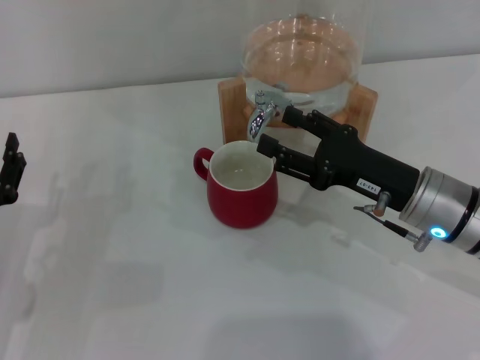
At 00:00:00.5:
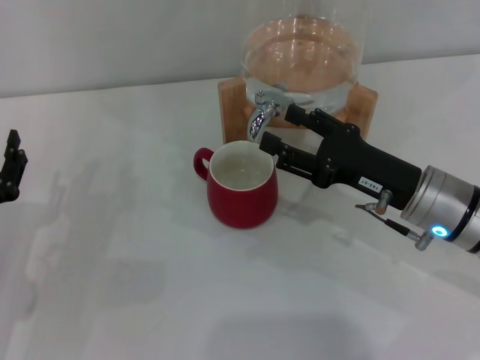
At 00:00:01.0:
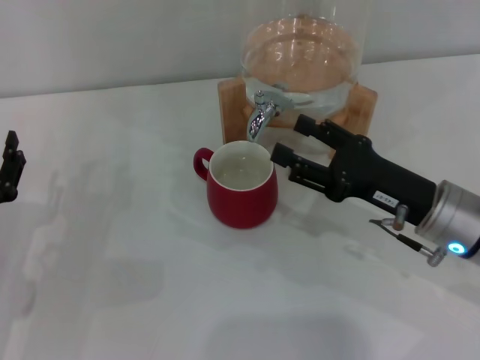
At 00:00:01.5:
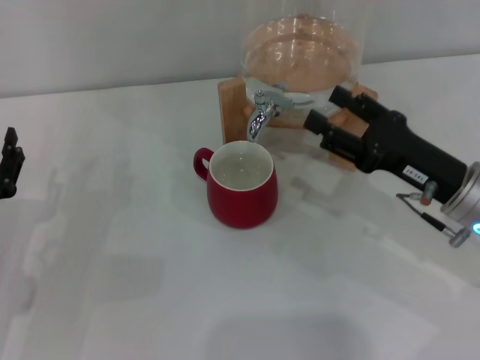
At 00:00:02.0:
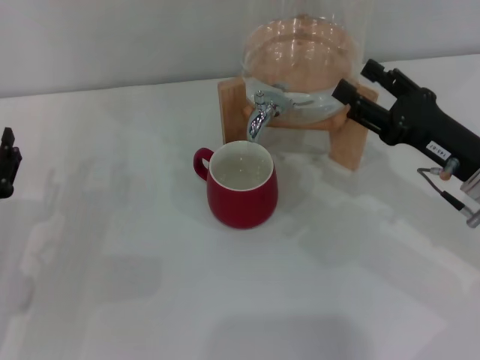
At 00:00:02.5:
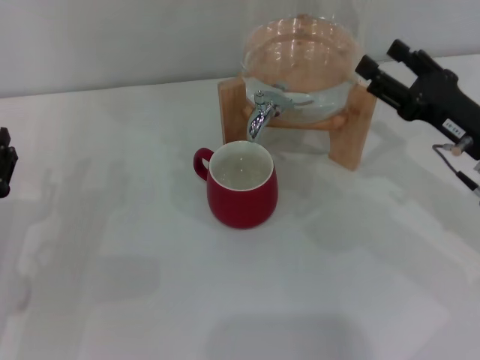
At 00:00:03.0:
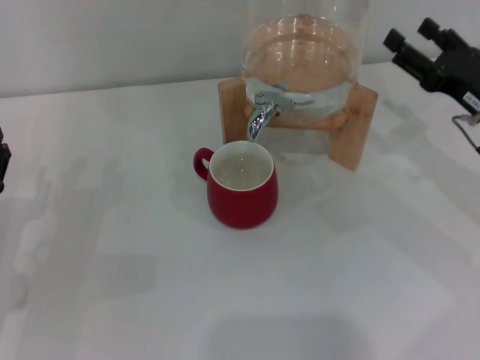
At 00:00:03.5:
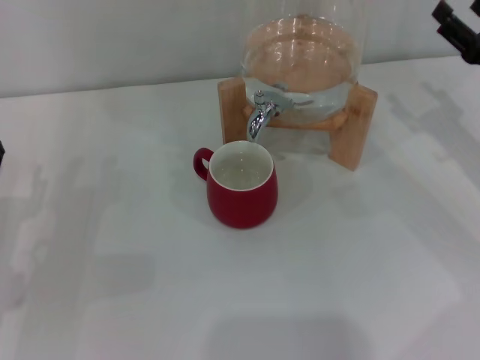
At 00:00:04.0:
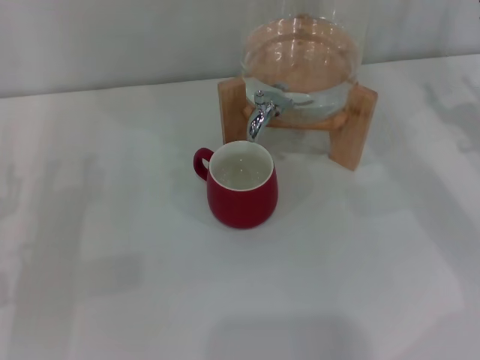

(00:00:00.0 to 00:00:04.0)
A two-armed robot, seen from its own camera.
Task of the whole recording: the left gripper pick up the red cup and place it horizontally under the faucet, the right gripper turn on the faucet to fill the cup, and then turn off the faucet.
00:00:00.0 - 00:00:02.0: The right gripper is displaced to the right by about 5 cm.
00:00:02.0 - 00:00:04.0: The right gripper moves to the right, approximately 10 cm.
